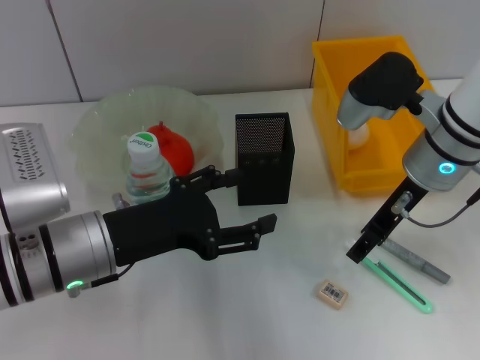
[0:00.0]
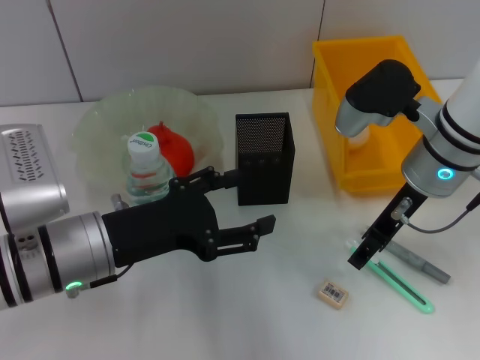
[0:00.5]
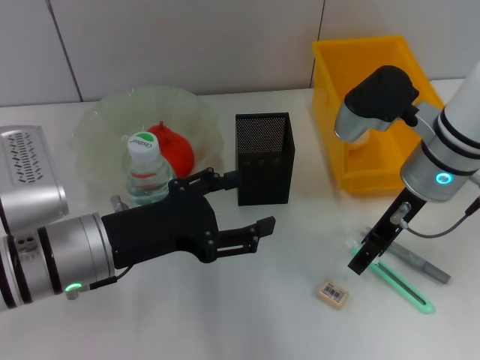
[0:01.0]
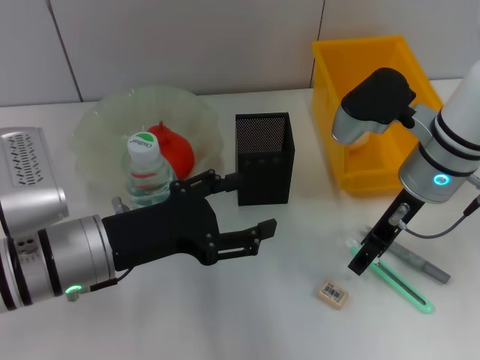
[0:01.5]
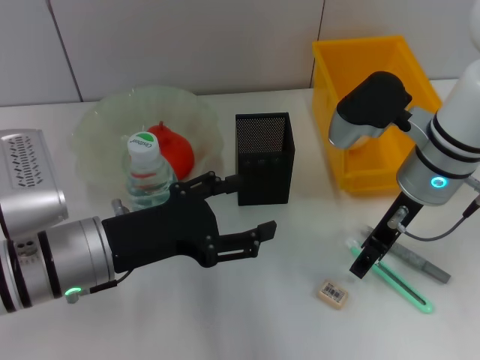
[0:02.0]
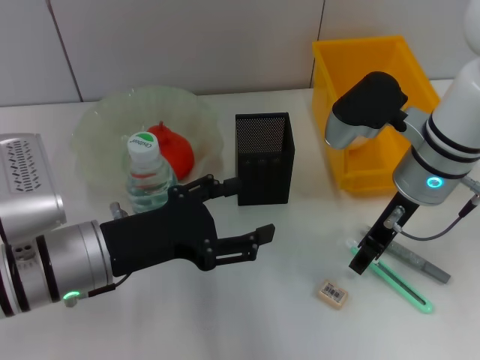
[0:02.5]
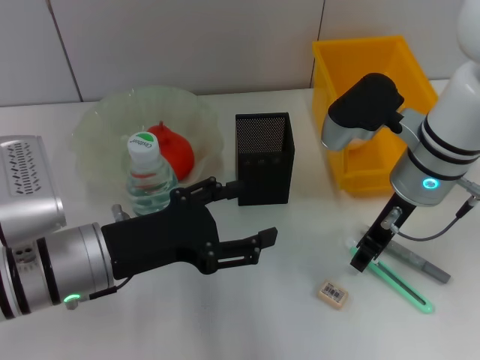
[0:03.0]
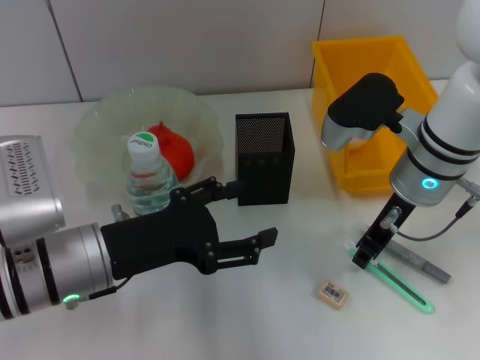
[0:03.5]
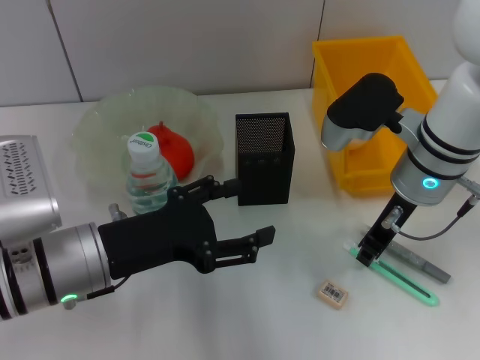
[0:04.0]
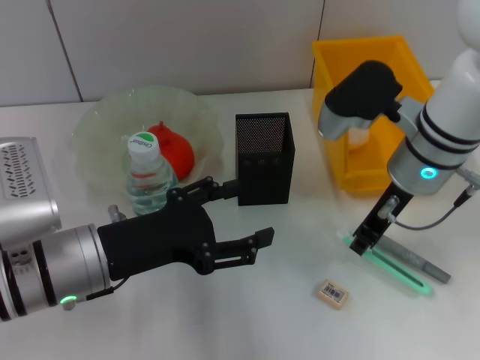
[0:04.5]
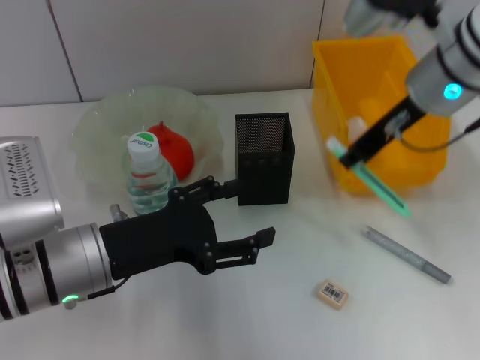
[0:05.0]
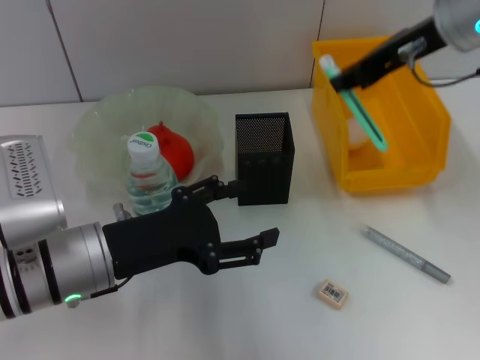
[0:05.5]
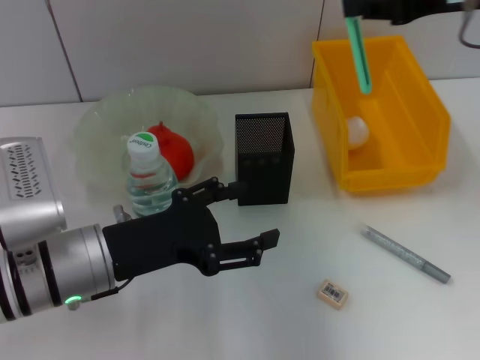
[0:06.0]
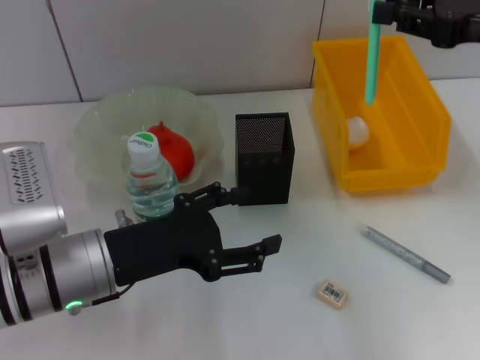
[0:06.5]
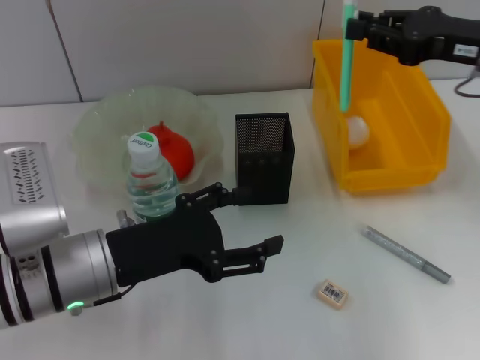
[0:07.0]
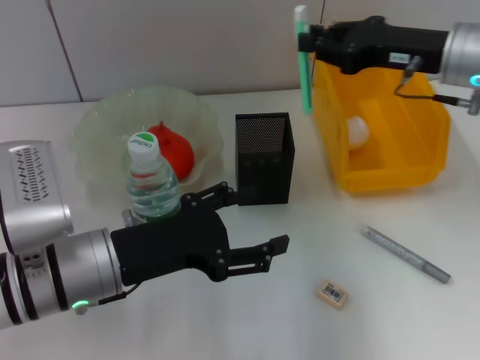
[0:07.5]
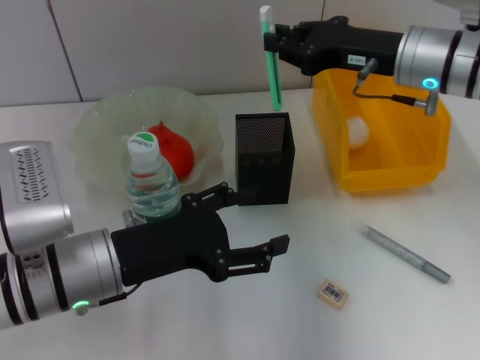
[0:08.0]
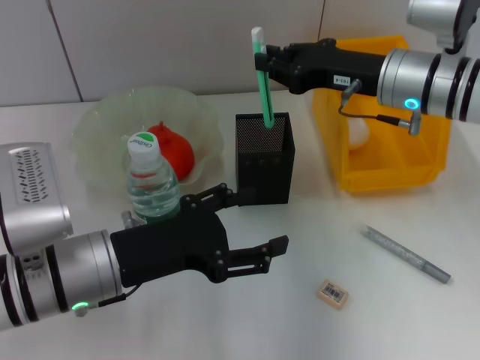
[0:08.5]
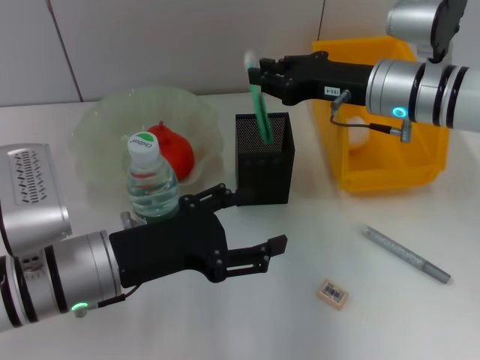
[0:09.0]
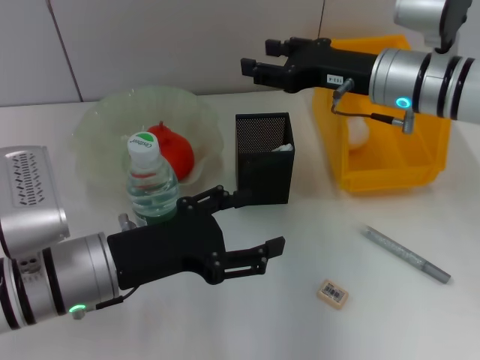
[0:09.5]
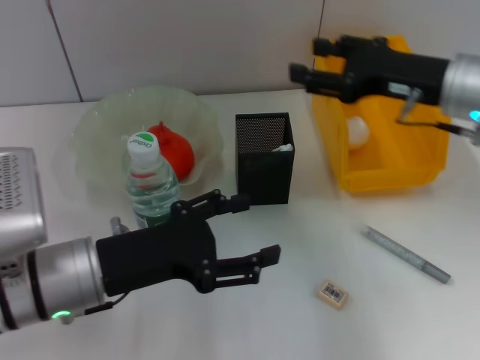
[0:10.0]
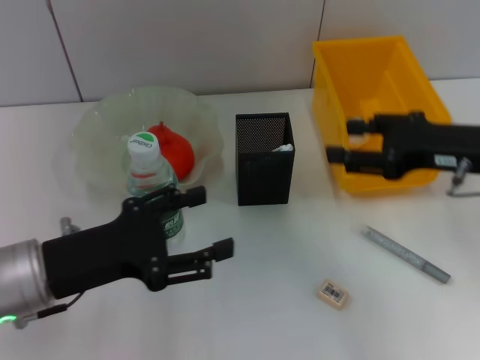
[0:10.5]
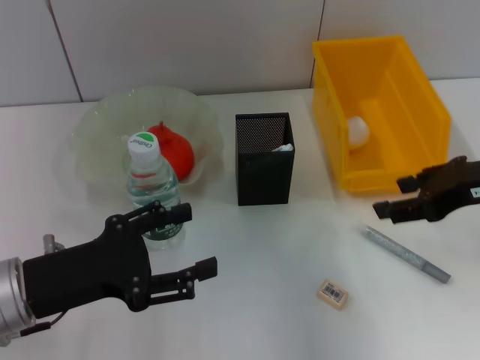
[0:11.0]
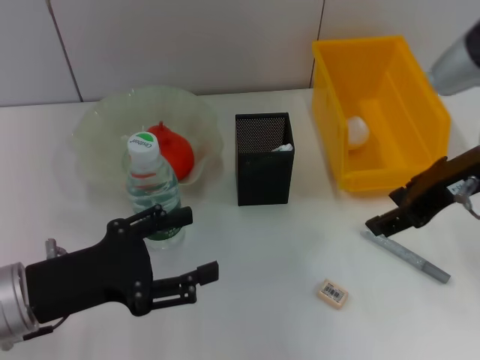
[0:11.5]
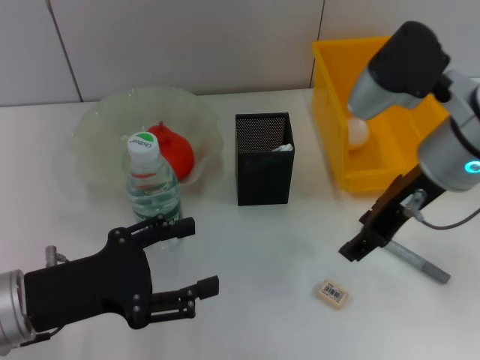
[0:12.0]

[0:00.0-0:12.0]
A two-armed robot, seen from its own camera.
Step, 0:00.0 to 0:04.0: Grab the blue utility knife with the right hand.
Step, 0:04.5 to 0:09.5: Place the blue utility knife into the pen holder with the right hand.
0:00.0 to 0:02.0: The grippers make only small movements.
0:02.0 to 0:04.0: The right gripper closes up.
0:04.0 to 0:06.0: The right gripper is displaced upward and to the right by about 15 cm.
0:06.0 to 0:08.0: The right gripper travels downward and to the left by approximately 10 cm.
0:08.0 to 0:10.0: The right gripper travels backward by some 5 cm, and opens its fingers.
0:10.0 to 0:12.0: The grippers both shift to the left by some 5 cm.

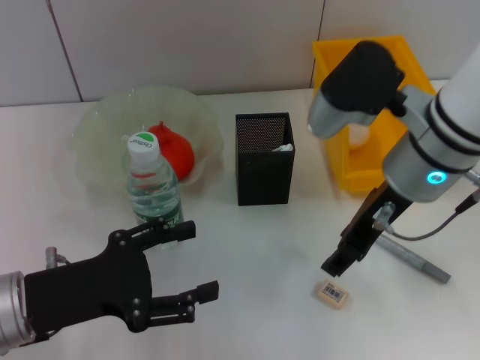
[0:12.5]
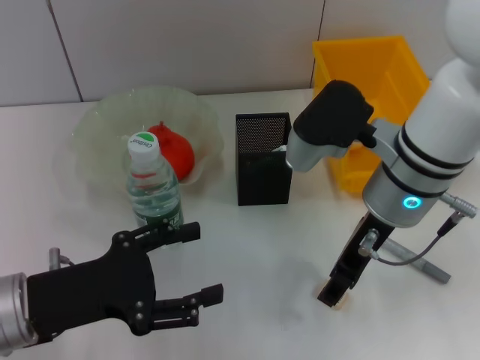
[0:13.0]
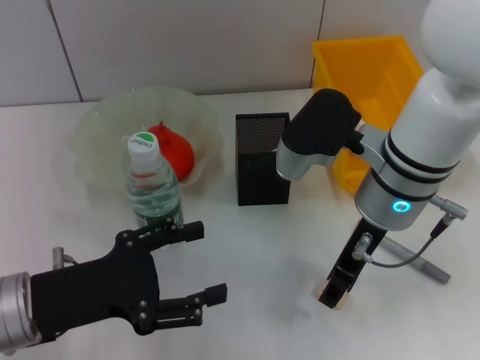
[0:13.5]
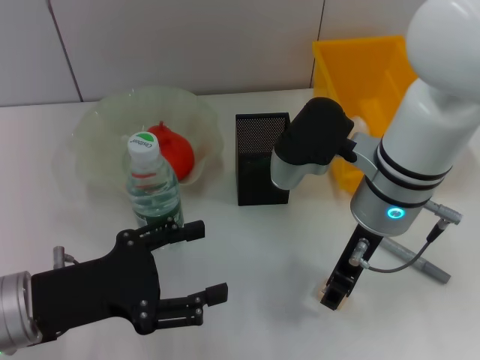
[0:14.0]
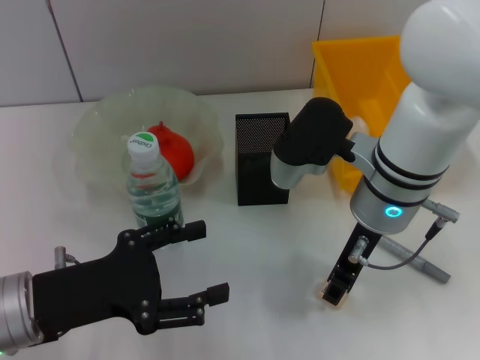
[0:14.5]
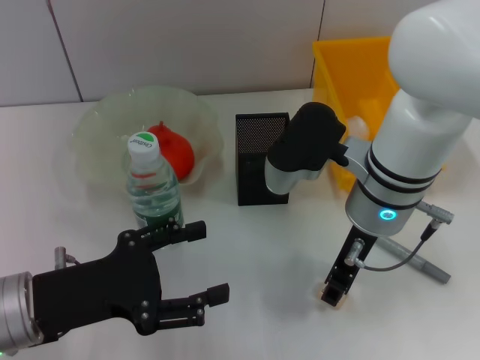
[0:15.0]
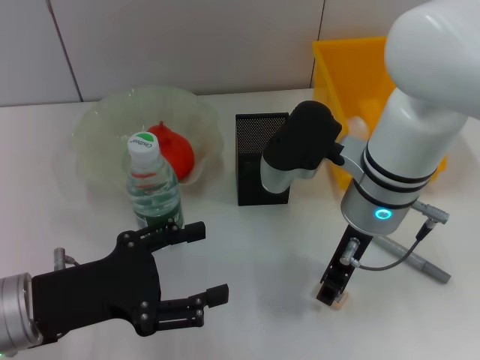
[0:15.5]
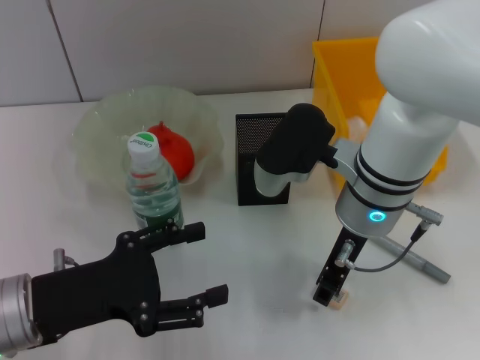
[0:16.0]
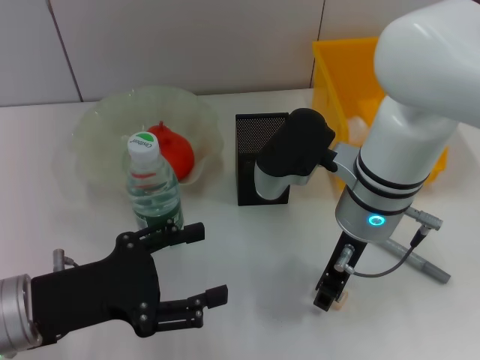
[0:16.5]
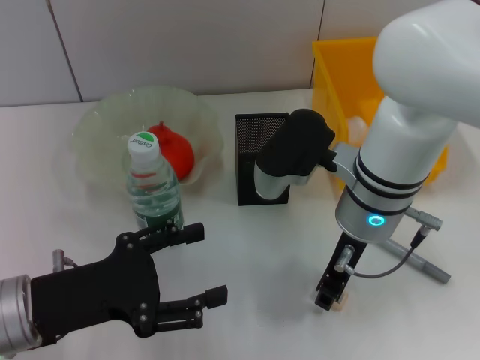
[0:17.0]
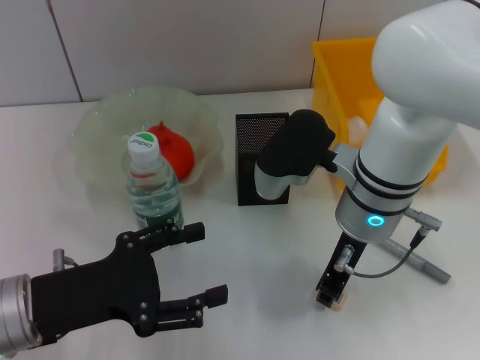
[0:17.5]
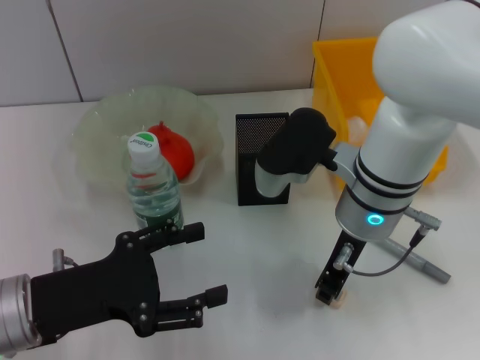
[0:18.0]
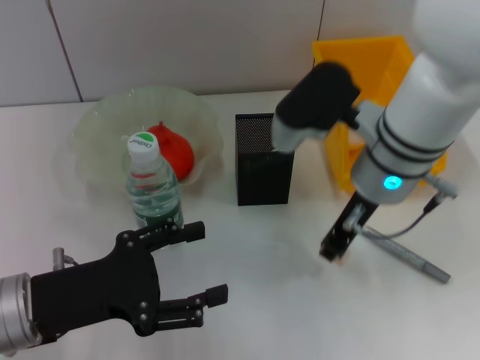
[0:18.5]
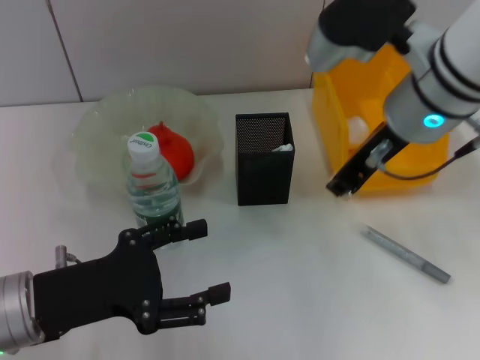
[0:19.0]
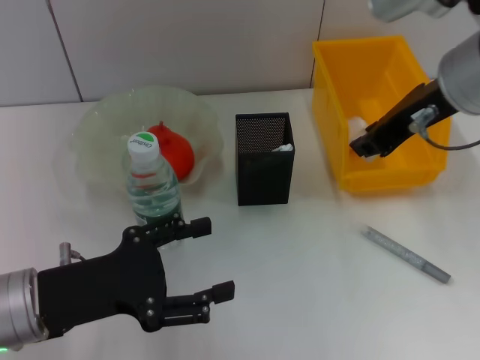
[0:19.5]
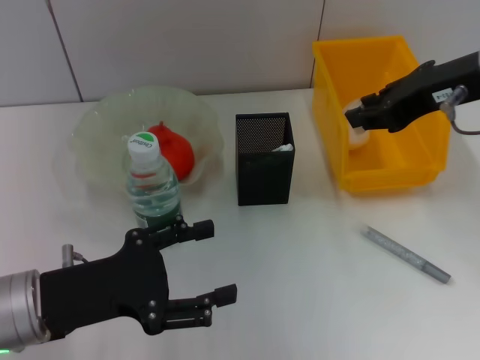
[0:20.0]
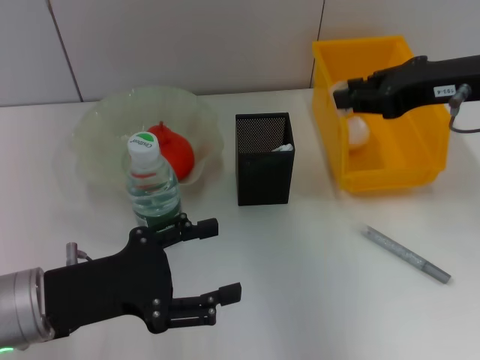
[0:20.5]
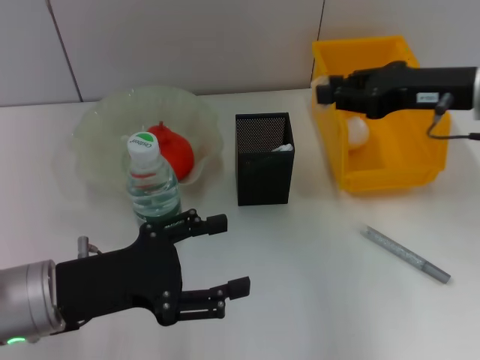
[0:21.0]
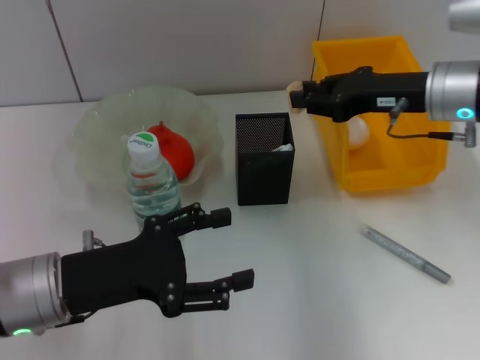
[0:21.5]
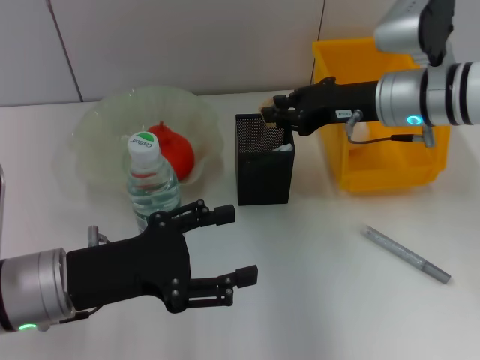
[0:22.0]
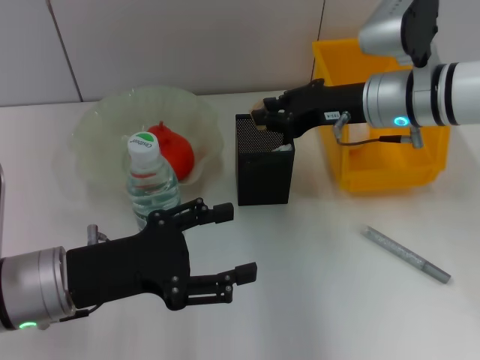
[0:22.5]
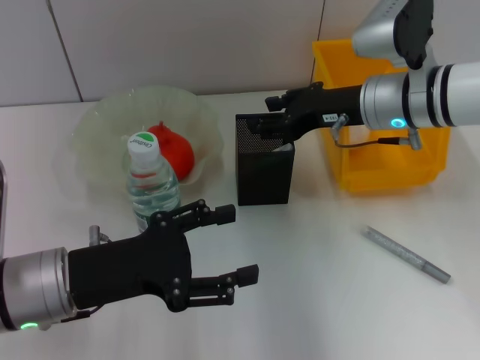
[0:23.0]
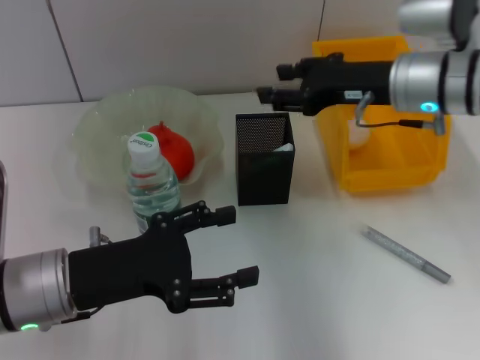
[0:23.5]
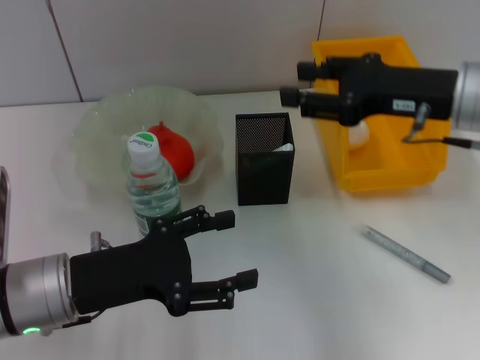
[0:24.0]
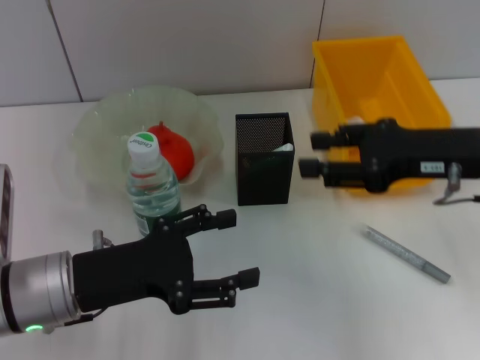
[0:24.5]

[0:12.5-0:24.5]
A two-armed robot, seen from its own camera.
Step, 0:12.5 to 0:17.5: Grab the eraser with the right hand.
Step, 0:18.0 to 0:23.0: Put the eraser into the pen holder with the right hand.
0:12.5 to 0:14.5: The right gripper moves some 5 cm.
0:14.5 to 0:18.5: The grippers make only small movements.
0:18.5 to 0:20.5: The right gripper moves to the right and upward, some 15 cm.
0:20.5 to 0:22.5: The right gripper is displaced downward, forward and to the left by approximately 15 cm.
0:22.5 to 0:24.5: The right gripper travels backward and to the right by some 10 cm, and opens its fingers.

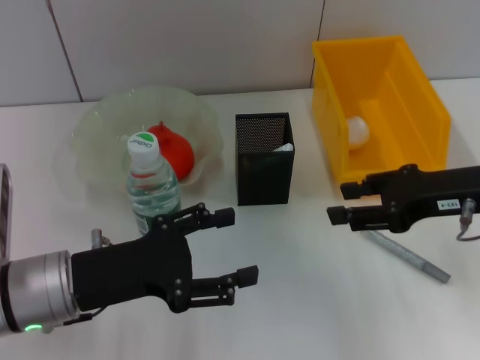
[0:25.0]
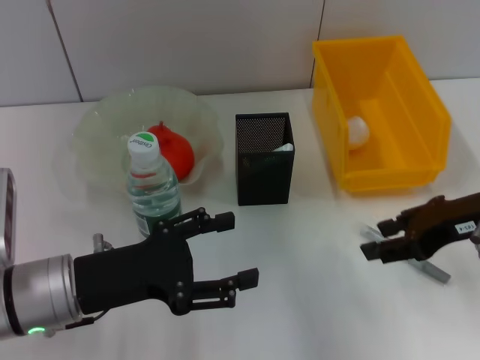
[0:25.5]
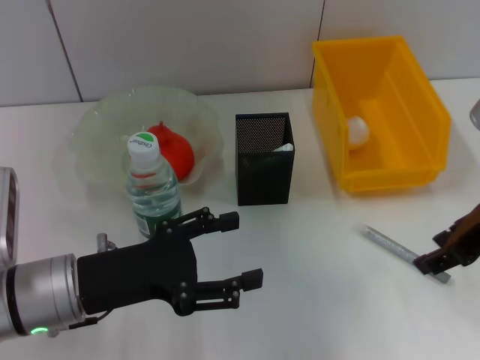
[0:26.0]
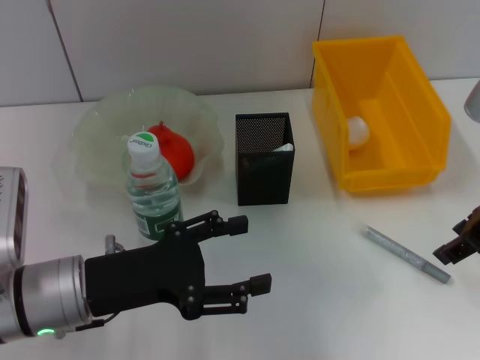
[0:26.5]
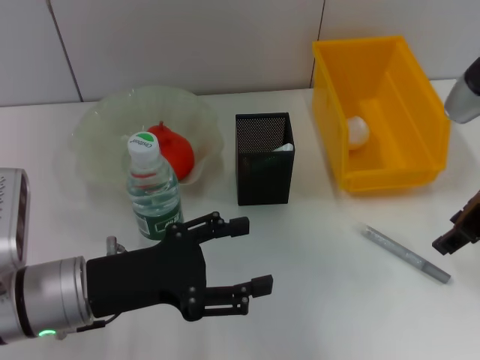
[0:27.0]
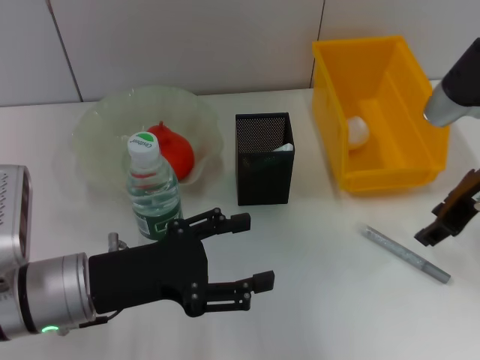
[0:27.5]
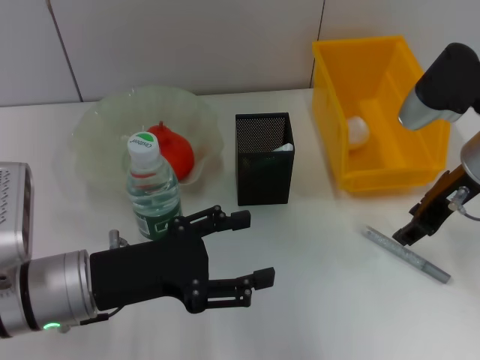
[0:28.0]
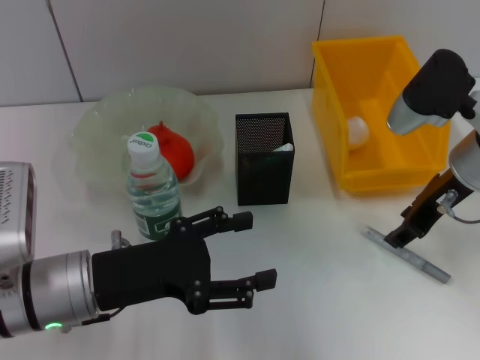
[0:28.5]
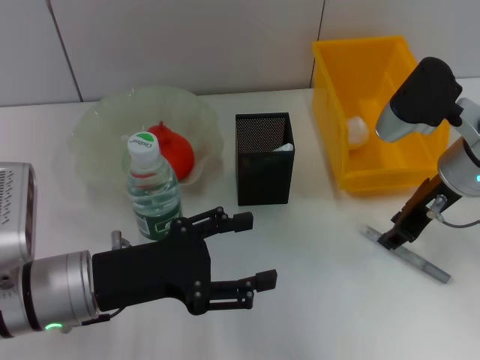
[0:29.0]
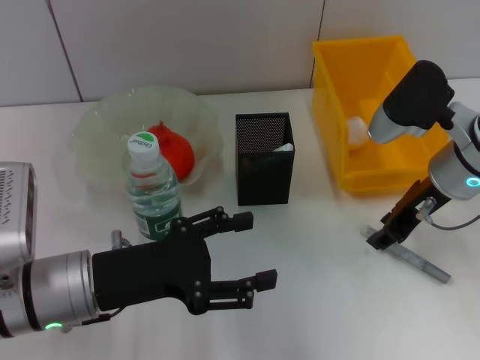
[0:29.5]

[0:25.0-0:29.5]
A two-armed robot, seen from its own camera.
0:27.0 to 0:29.5: The right gripper shifts approximately 5 cm downward.
